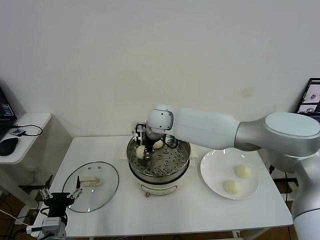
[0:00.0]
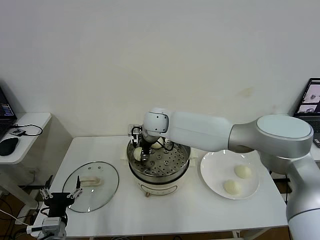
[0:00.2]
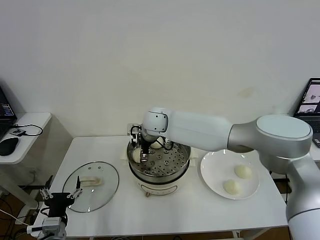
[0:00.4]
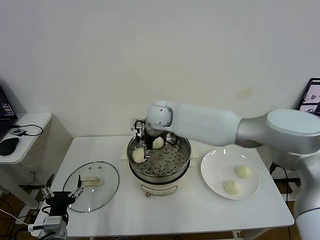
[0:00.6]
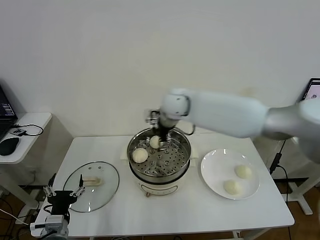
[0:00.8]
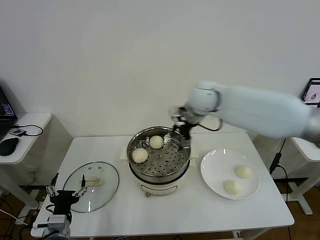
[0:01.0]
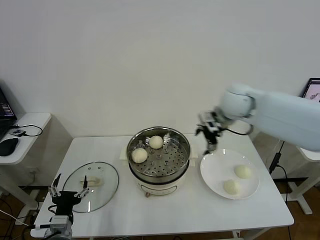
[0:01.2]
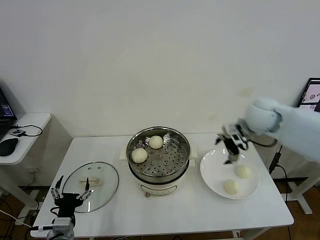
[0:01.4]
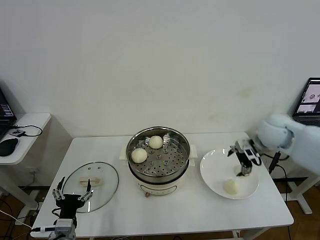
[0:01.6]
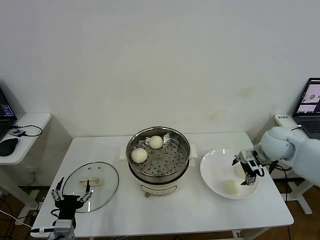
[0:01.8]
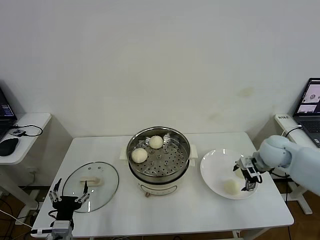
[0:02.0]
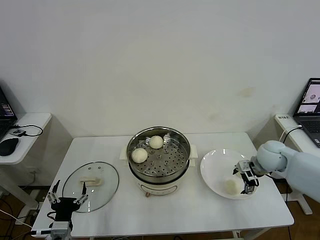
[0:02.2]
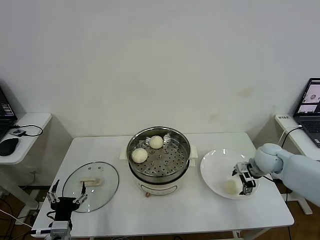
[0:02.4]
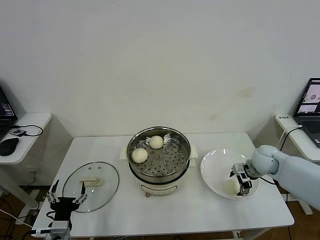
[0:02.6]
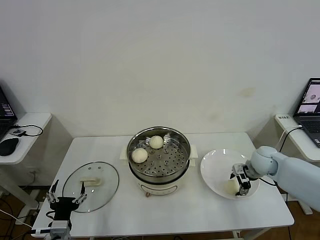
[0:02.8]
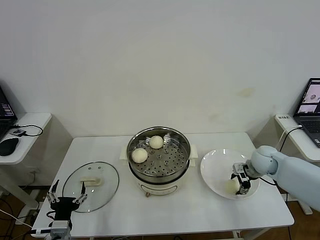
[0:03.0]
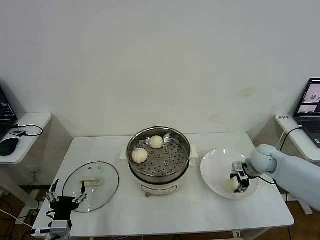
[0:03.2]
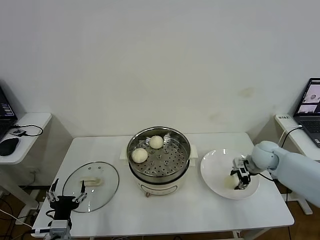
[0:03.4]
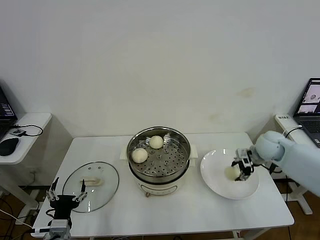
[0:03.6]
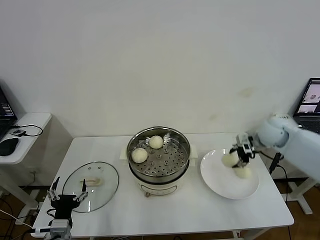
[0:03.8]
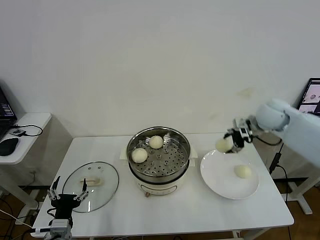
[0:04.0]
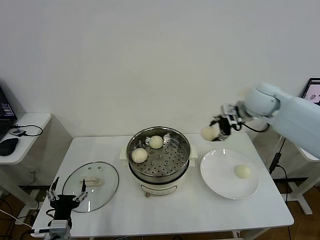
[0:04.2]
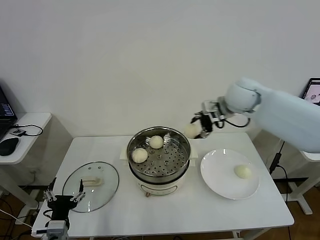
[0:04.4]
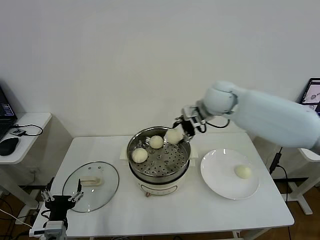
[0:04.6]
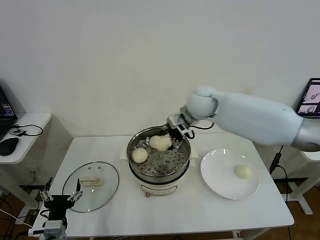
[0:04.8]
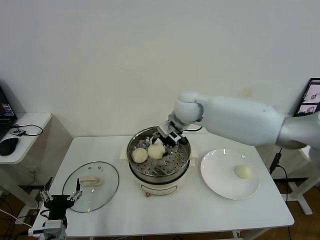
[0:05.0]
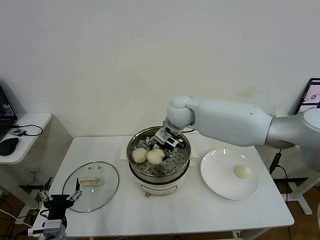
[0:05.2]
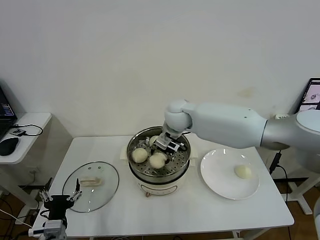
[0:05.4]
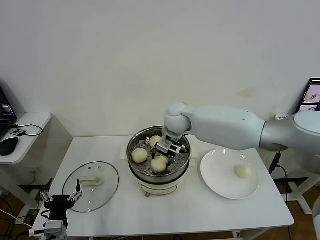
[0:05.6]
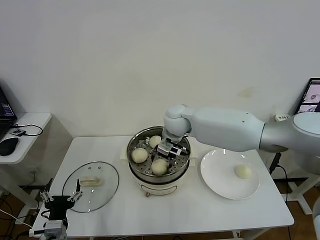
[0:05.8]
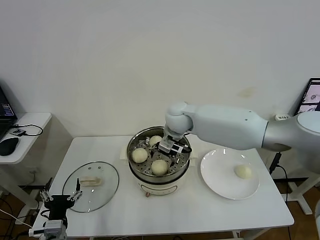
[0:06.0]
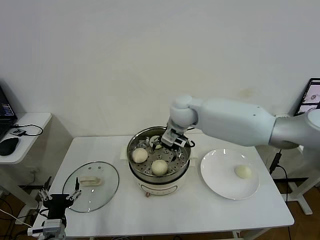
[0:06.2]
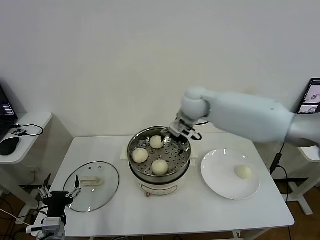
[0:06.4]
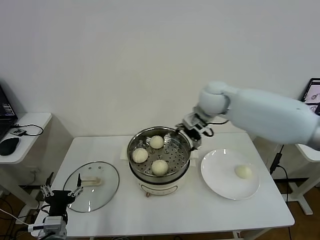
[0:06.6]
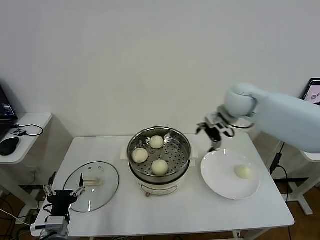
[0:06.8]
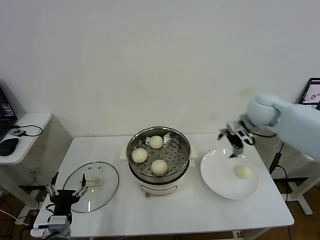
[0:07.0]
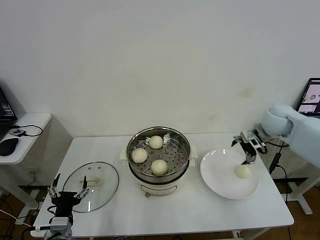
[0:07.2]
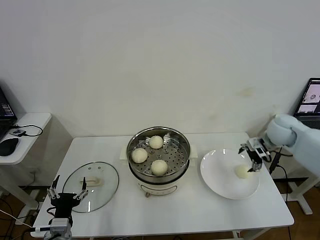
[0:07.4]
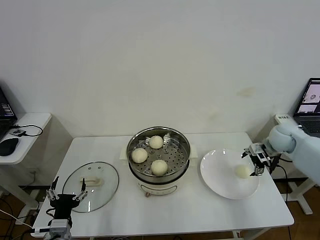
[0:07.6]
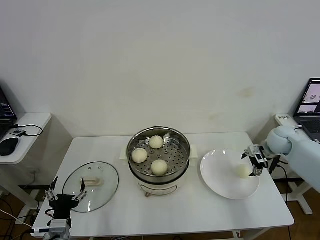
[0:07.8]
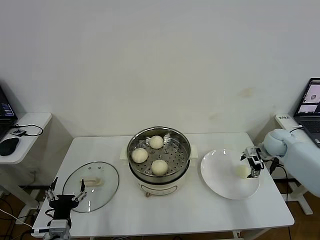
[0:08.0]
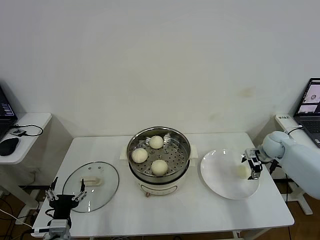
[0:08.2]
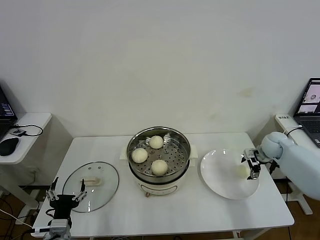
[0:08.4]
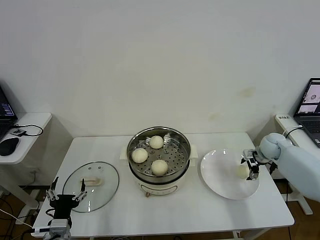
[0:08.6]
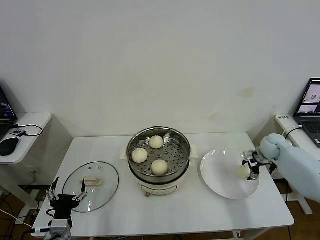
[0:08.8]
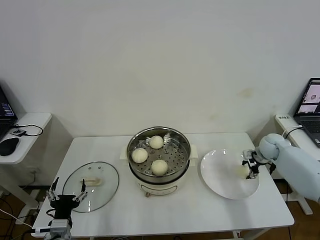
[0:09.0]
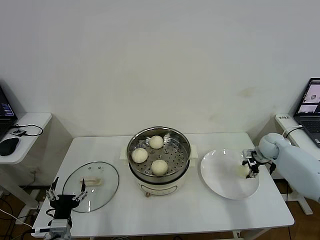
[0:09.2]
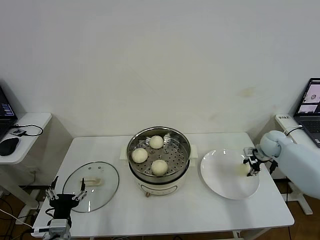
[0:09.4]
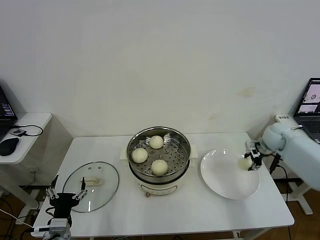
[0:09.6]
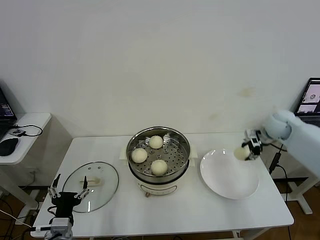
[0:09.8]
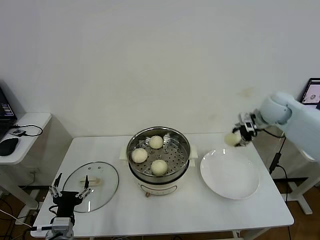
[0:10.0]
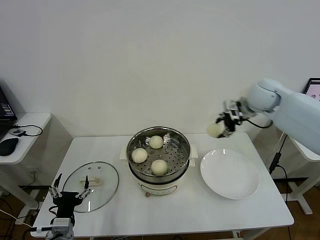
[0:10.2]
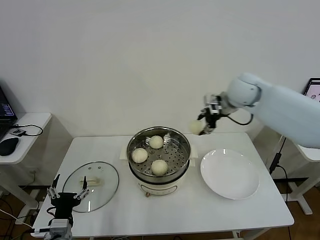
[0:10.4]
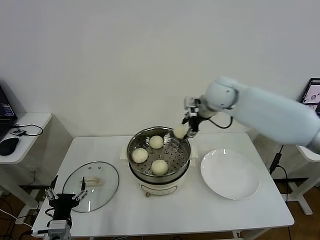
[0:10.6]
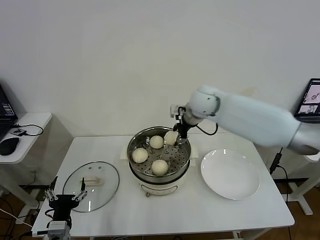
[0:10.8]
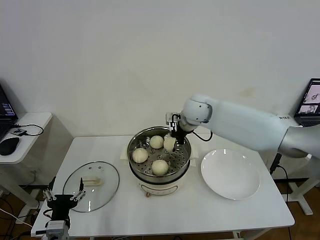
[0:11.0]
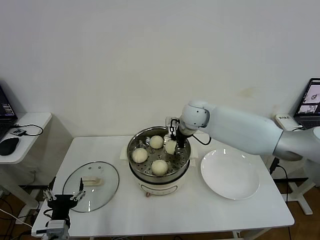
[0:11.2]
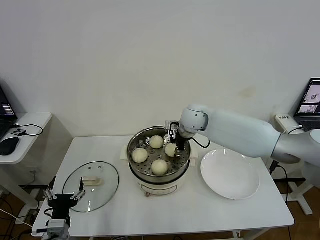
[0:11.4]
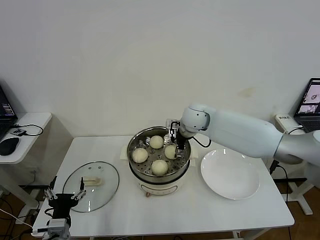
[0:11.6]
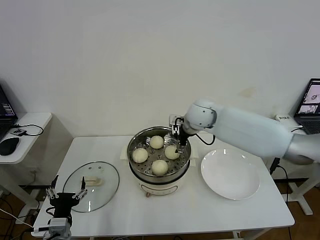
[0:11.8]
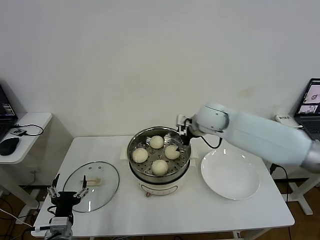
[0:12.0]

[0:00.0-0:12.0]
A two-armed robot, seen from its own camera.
Step, 0:00.6 to 0:03.2: Grasp the baozi in the plate with right gripper.
Step, 0:03.4 to 0:05.8: Place the baozi on the steamer with right gripper.
Step, 0:06.2 to 0:09.4: Grasp the baozi in the plate with right gripper.
Step, 0:09.6 to 0:11.6: Place the baozi on the steamer with right gripper.
0:00.0 to 0:01.6: The right gripper is displaced to the right by some 35 cm, and opens.
0:01.6 to 0:03.0: The right gripper goes roughly 10 cm downward, and closes.
0:03.0 to 0:04.4: The right gripper heads upward and to the left, covering about 30 cm.
0:04.4 to 0:06.0: The right gripper travels to the left and downward by approximately 15 cm, and opens up.
0:06.0 to 0:07.6: The right gripper shifts some 35 cm to the right.
0:07.6 to 0:09.0: The right gripper moves downward, about 10 cm, and closes its fingers.
0:09.0 to 0:10.4: The right gripper travels upward and to the left by some 30 cm.
0:10.4 to 0:12.0: The right gripper heads downward and to the left, covering approximately 10 cm, and opens its fingers.

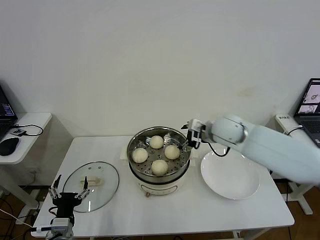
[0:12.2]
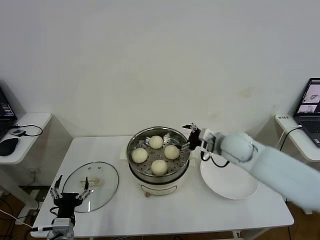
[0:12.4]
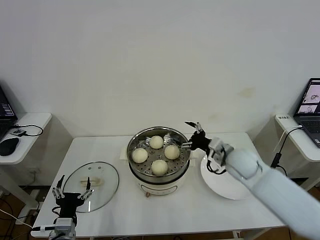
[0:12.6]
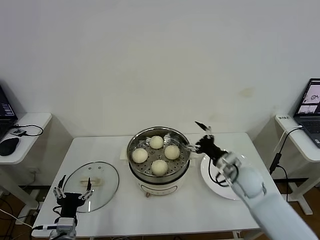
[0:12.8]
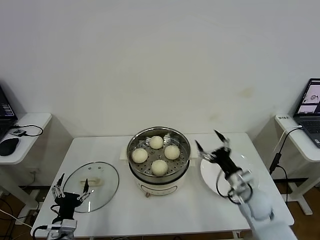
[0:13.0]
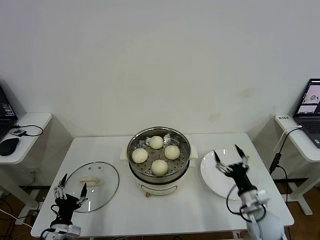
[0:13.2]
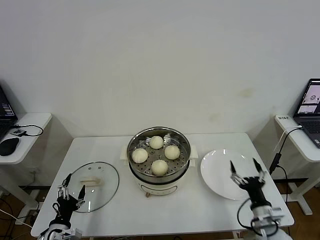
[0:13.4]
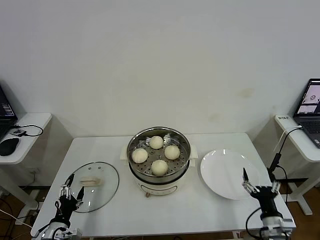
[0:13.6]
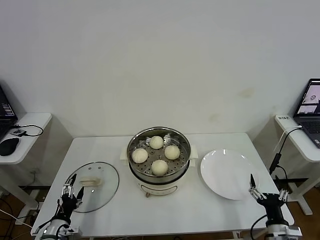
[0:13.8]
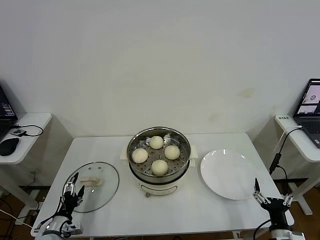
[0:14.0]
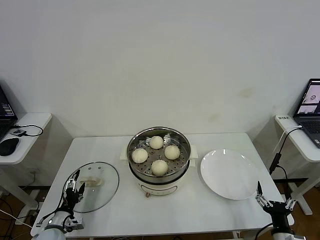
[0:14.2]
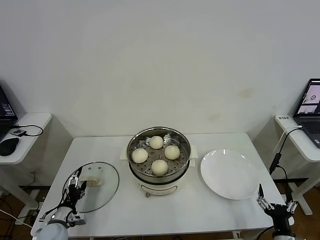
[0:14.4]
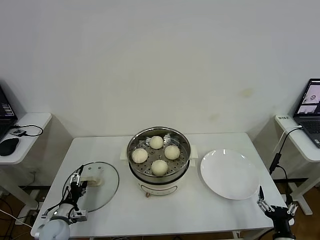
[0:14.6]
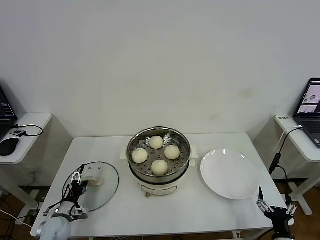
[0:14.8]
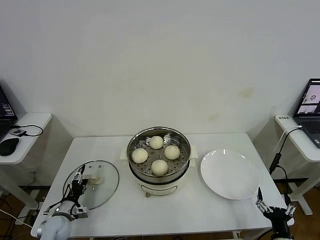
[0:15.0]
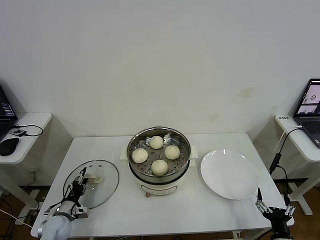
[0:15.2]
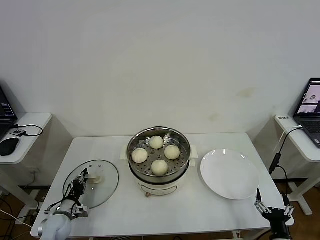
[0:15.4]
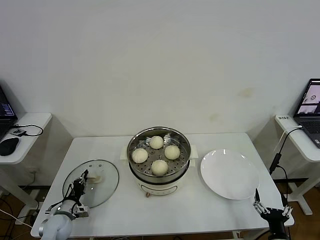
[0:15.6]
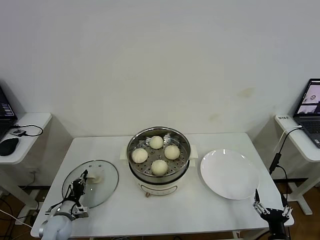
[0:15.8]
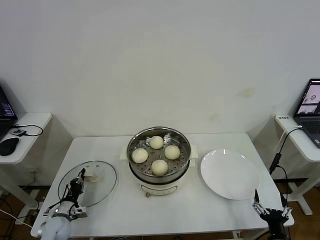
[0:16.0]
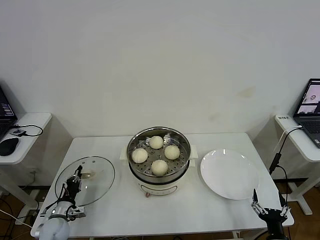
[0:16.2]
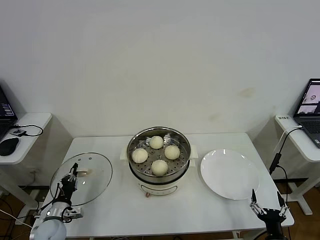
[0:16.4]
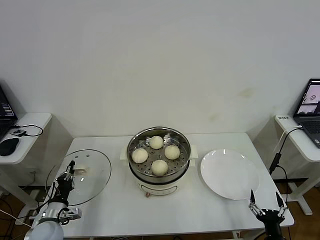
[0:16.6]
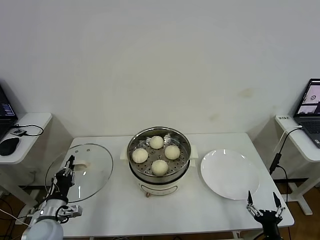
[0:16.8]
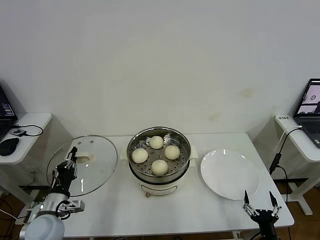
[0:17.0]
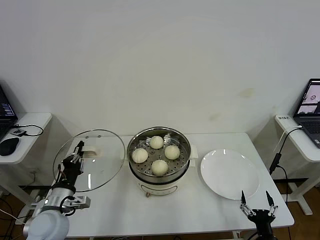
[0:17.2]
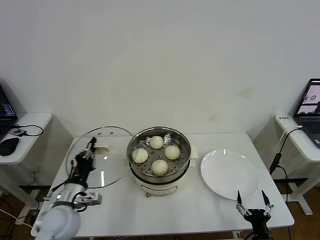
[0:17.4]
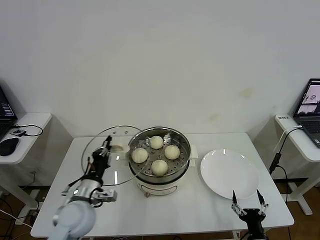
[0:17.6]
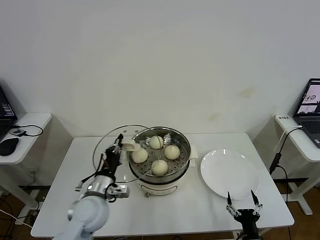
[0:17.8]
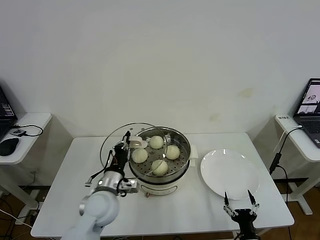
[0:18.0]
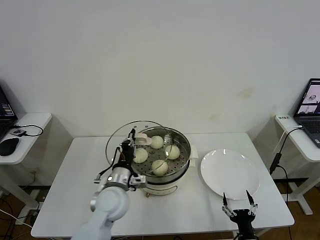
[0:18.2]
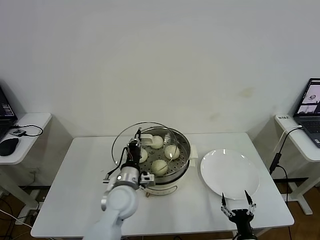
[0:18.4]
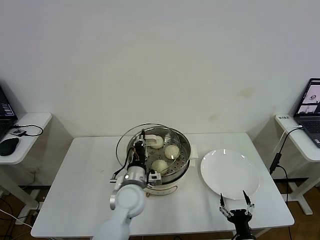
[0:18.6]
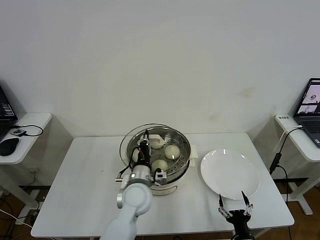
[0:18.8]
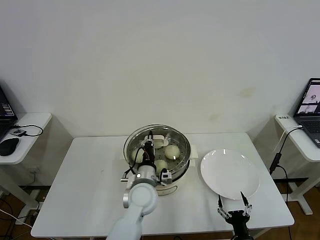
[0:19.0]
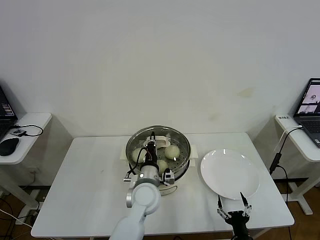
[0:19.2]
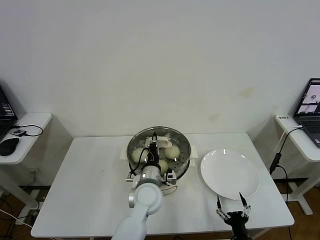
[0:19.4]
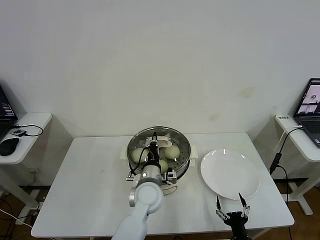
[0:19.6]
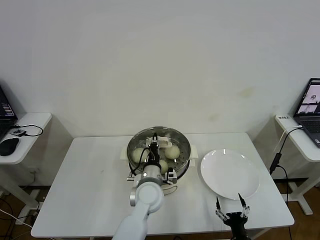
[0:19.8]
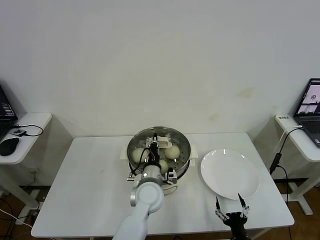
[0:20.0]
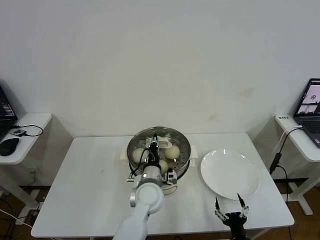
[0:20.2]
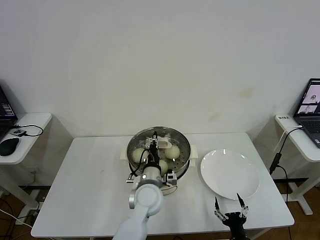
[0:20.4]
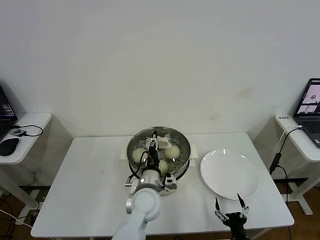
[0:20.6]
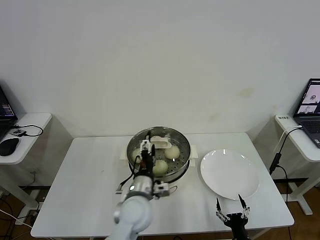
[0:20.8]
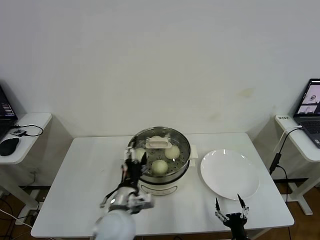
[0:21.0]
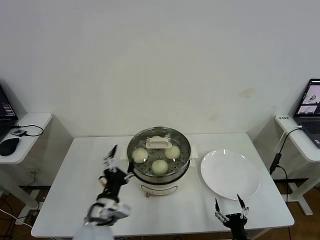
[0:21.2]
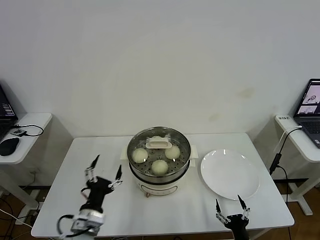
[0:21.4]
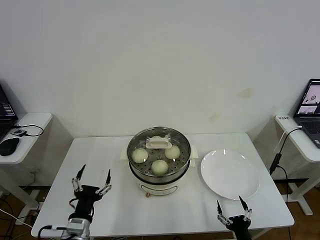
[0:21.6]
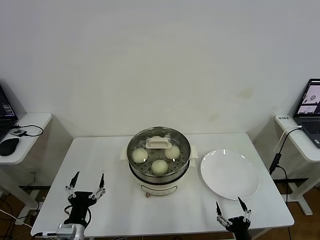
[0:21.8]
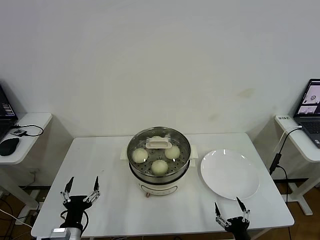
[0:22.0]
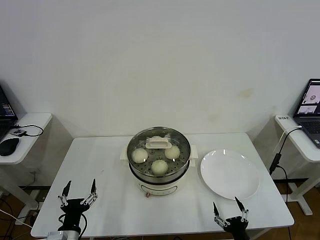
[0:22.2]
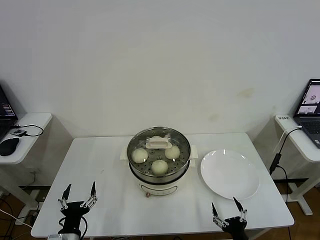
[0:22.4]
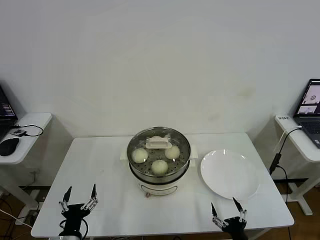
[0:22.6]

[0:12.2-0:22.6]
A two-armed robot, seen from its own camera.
Step, 0:12.2 to 0:15.6: Grasp the pot lid with left gripper.
Step, 0:16.0 to 0:20.4: Place the pot lid on the steamer with left gripper.
0:12.2 to 0:13.6: The right gripper is displaced backward, downward and to the right by some 40 cm; the left gripper heads downward and to the left, covering roughly 10 cm.
0:13.6 to 0:15.2: The left gripper heads forward and downward, covering about 10 cm, and closes its fingers; the right gripper goes approximately 5 cm backward.
0:15.2 to 0:16.6: The left gripper heads upward, covering about 5 cm, and closes its fingers.
0:16.6 to 0:18.2: The right gripper goes approximately 5 cm to the left. Meanwhile the left gripper heads to the right and upward, covering roughly 25 cm.
0:18.2 to 0:19.6: The left gripper goes roughly 10 cm to the right.
0:19.6 to 0:21.2: The left gripper goes about 15 cm backward and to the left, and opens its fingers.
0:21.2 to 0:22.6: The left gripper goes roughly 20 cm to the left, downward and backward.
